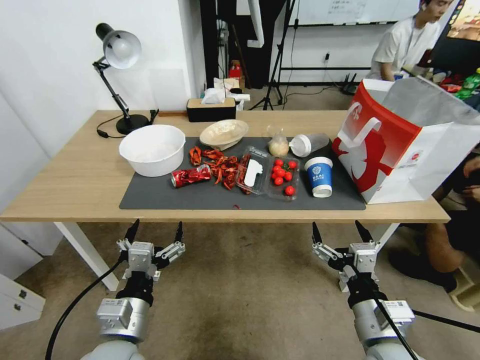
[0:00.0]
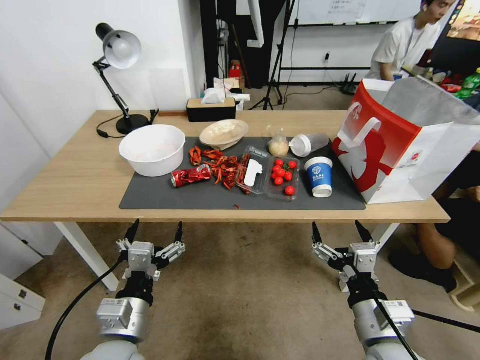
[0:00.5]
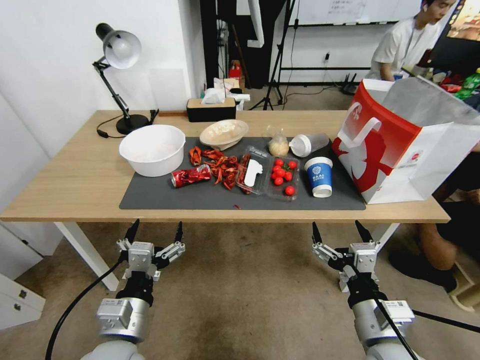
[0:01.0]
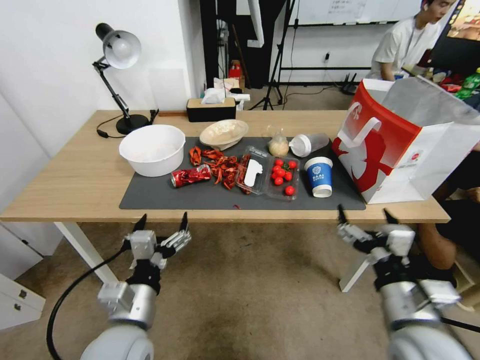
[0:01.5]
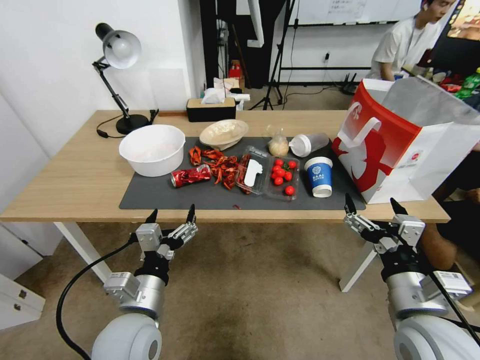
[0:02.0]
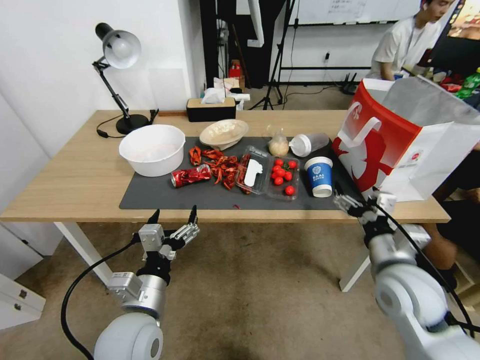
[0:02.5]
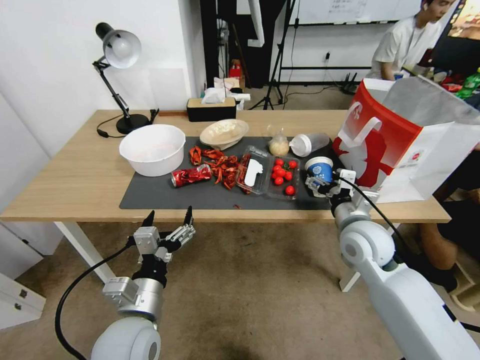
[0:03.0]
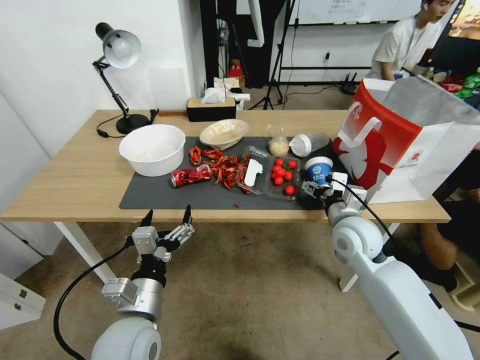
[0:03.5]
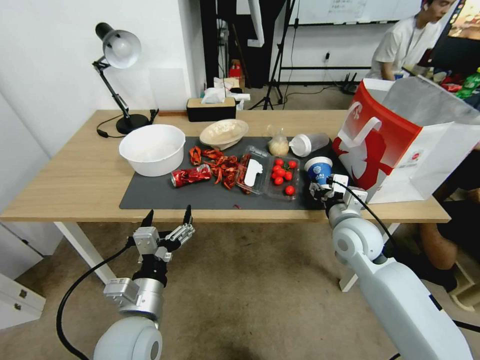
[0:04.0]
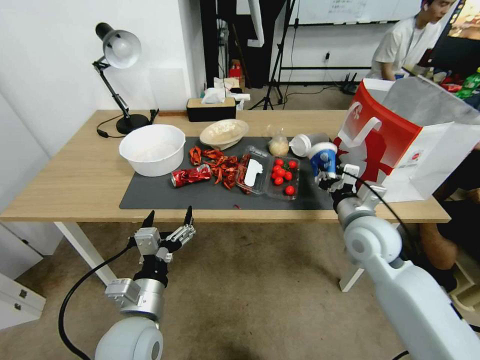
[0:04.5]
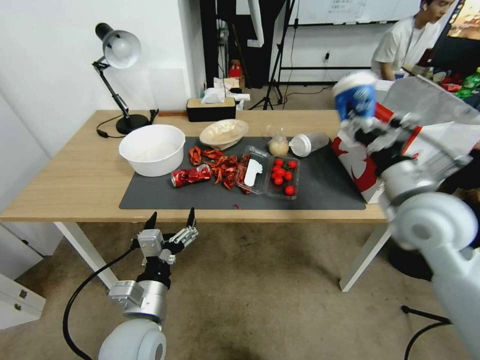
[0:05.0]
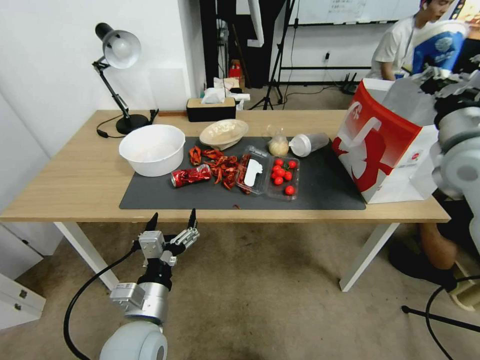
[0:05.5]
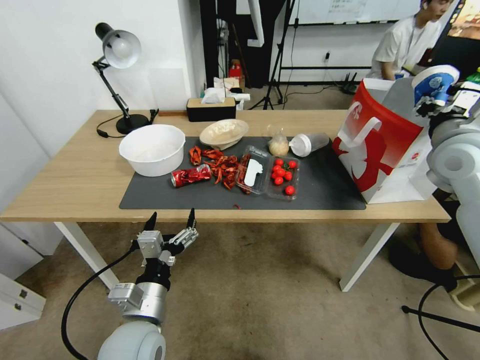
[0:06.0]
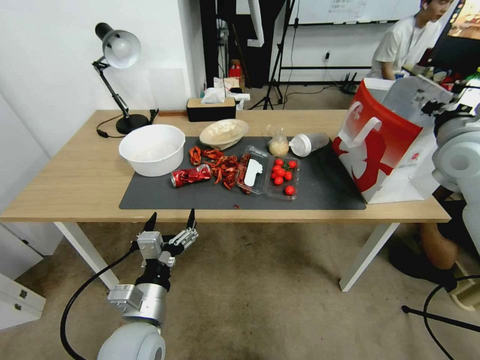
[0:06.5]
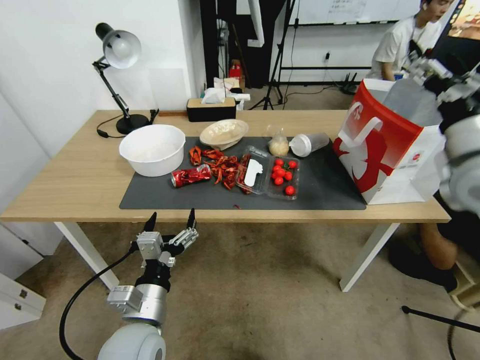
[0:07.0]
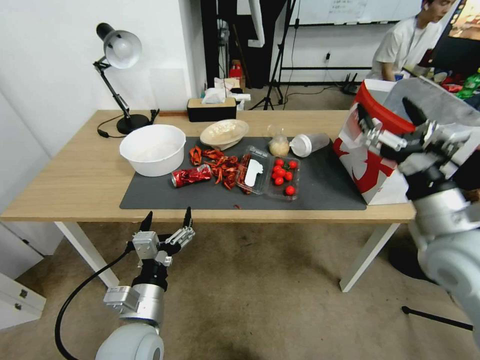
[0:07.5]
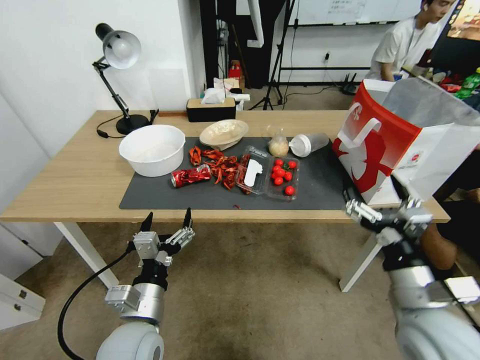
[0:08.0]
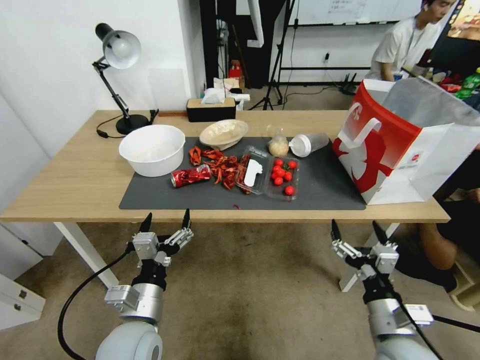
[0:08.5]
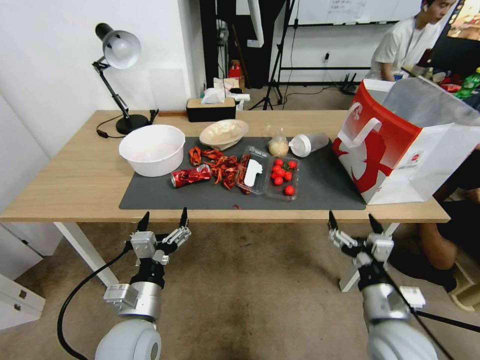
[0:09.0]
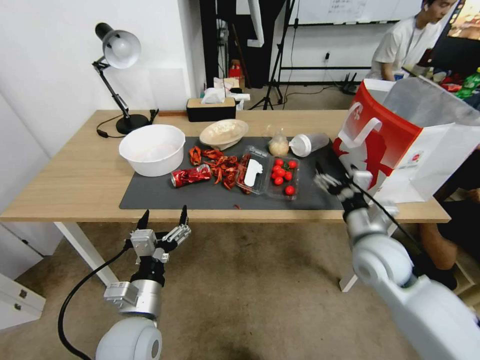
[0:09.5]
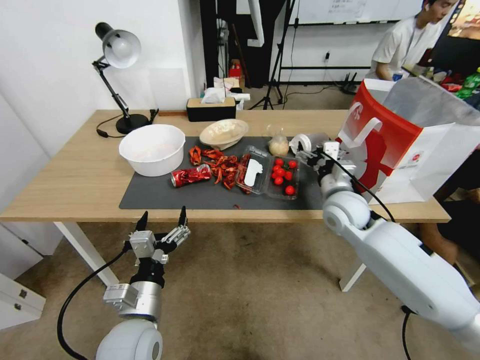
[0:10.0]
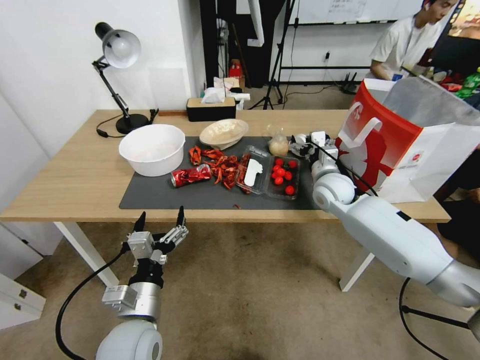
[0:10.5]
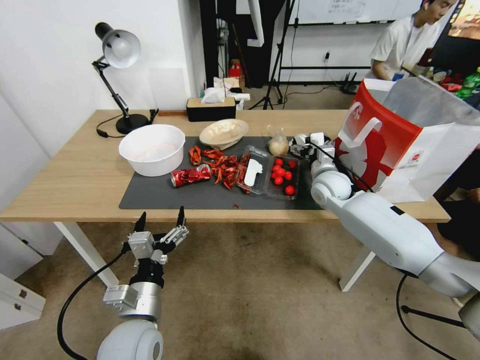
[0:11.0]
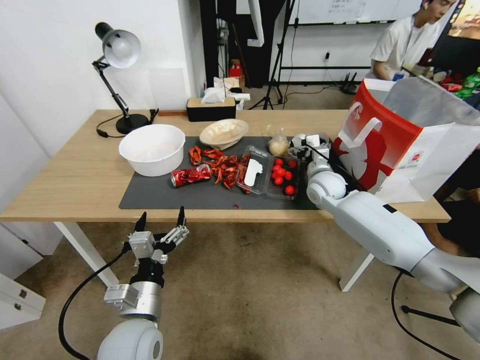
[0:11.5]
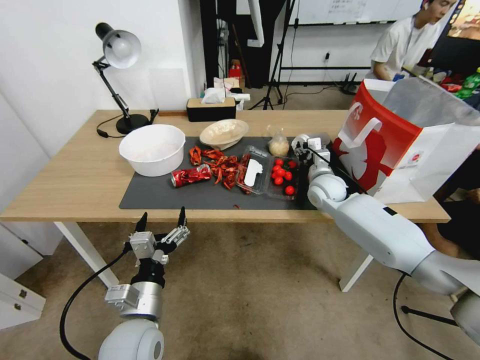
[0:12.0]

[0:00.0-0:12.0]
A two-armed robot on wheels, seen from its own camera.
0:02.0 to 0:04.0: The right gripper is displaced forward by roughly 20 cm, and closes.
0:04.0 to 0:06.0: The right gripper goes some 25 cm upward and to the right.
0:06.0 to 0:08.0: The right gripper goes about 30 cm backward, downward and to the left, and opens its fingers.
0:08.0 to 0:10.0: The right gripper travels forward by about 25 cm.
0:10.0 to 0:12.0: The right gripper goes some 10 cm forward, and closes.

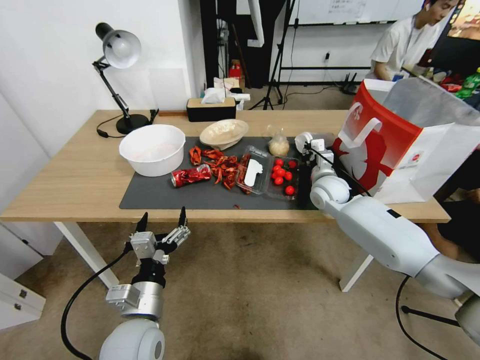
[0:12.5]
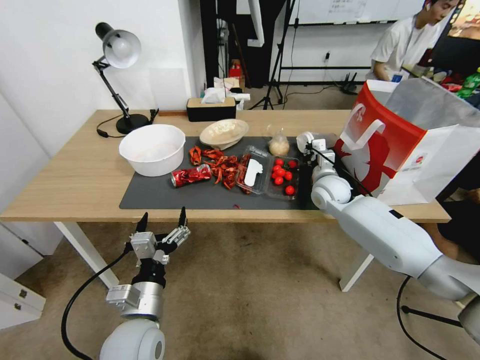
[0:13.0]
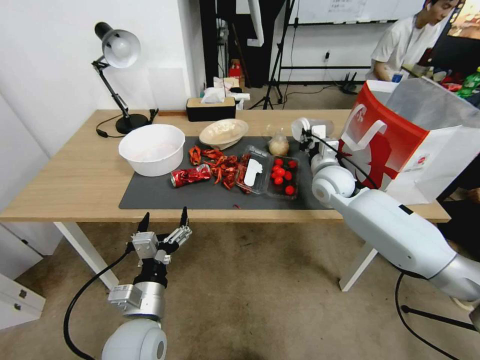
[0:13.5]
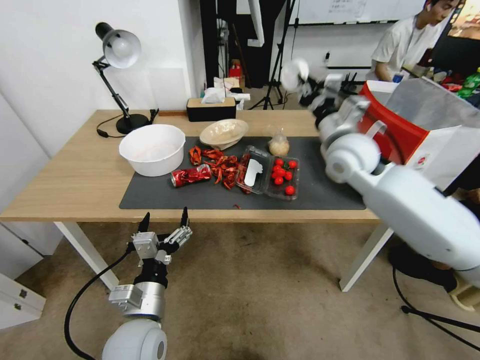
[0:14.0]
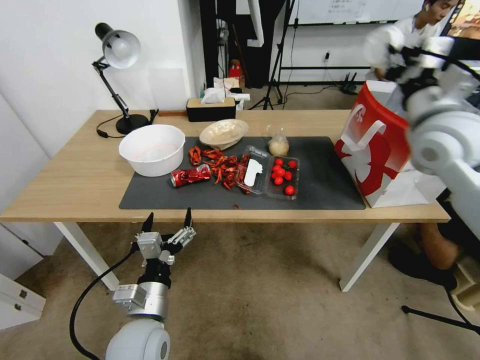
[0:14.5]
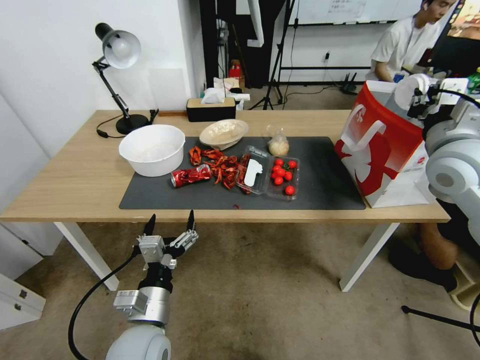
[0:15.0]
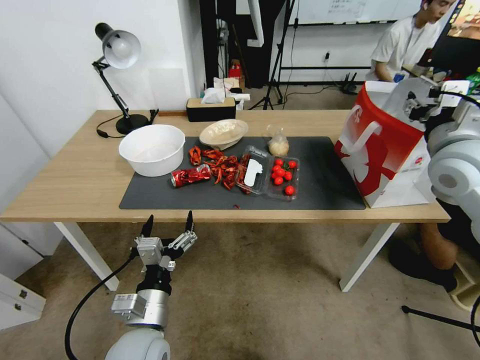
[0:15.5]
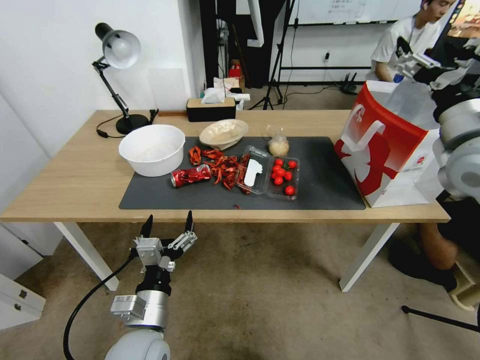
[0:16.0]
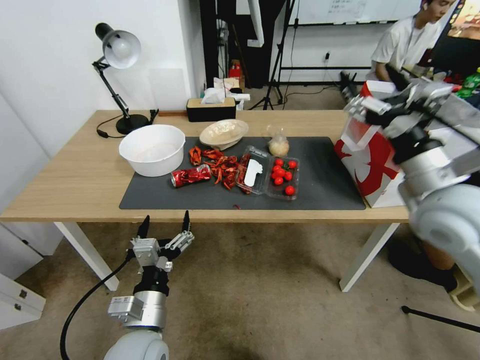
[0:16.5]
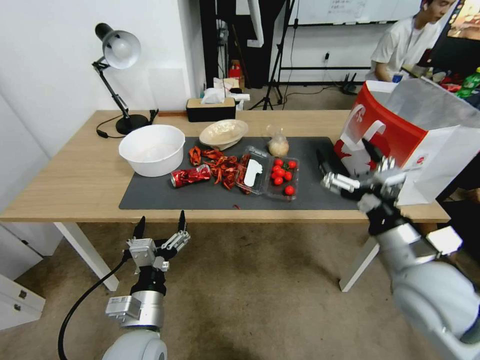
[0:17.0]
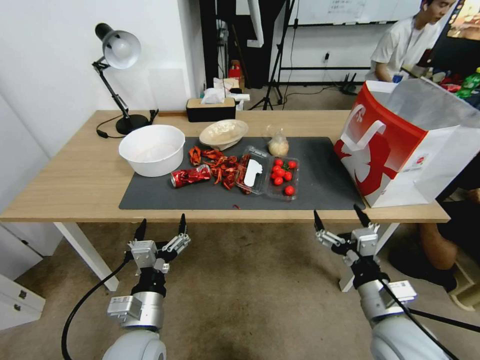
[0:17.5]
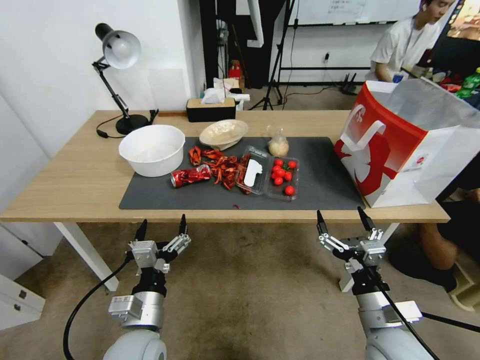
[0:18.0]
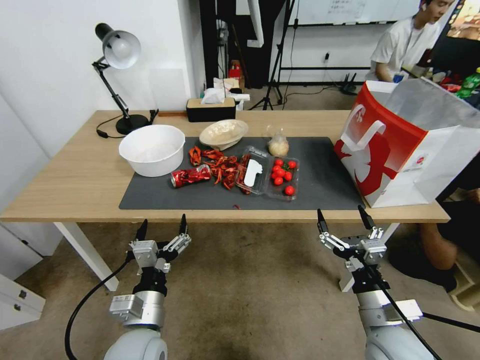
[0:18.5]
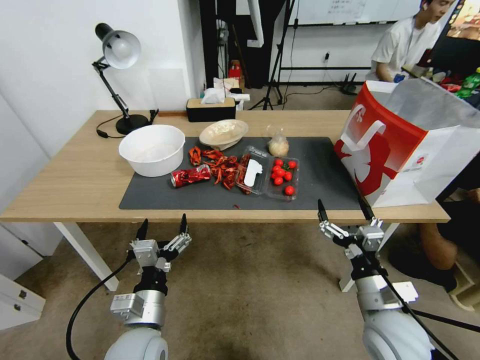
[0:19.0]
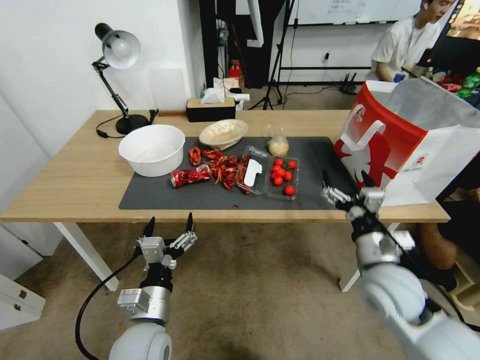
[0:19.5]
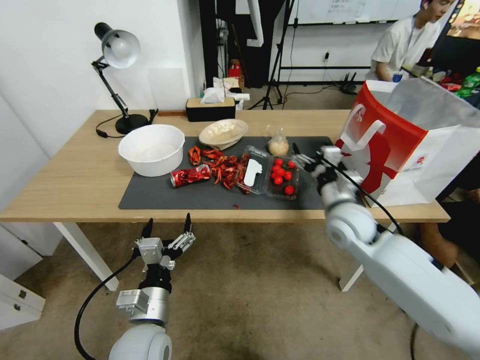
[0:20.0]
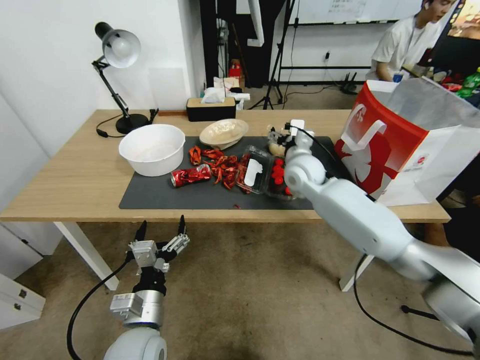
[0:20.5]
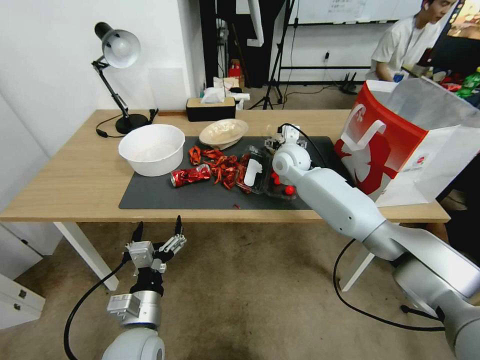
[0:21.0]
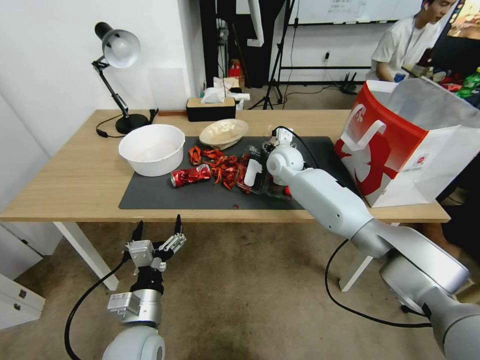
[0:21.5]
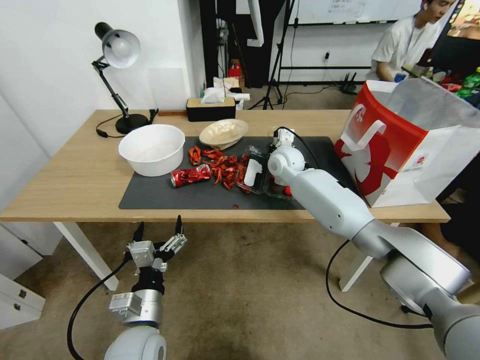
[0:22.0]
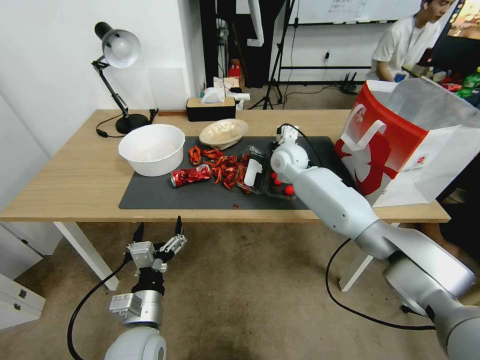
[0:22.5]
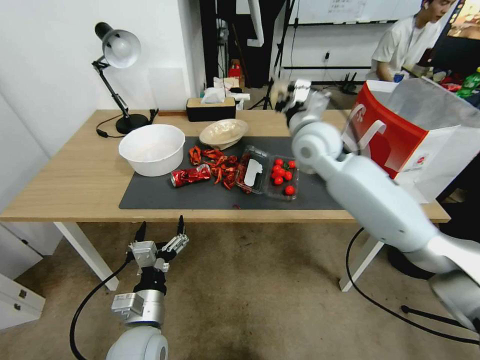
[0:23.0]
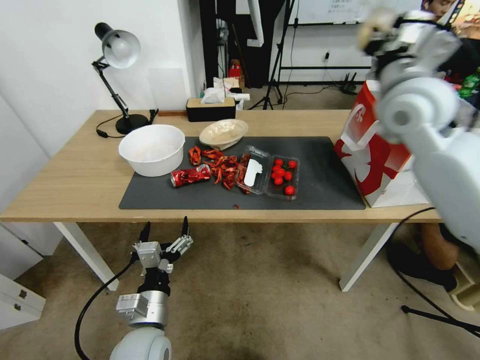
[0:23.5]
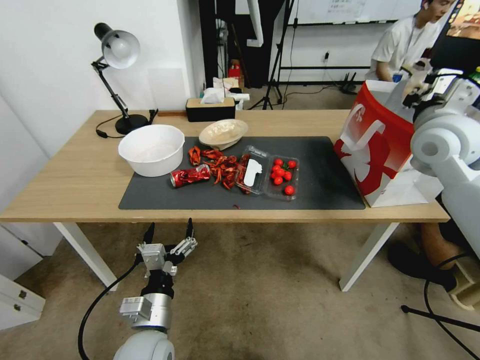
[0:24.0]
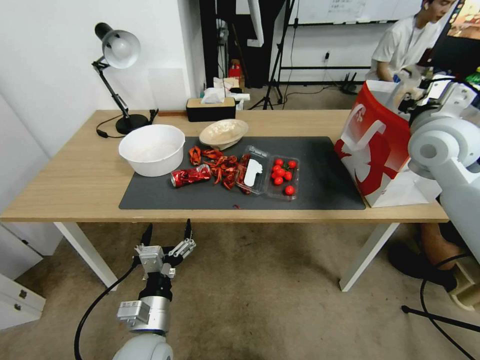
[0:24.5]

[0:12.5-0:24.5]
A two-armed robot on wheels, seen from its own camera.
0:12.5 to 0:14.5: The right gripper goes roughly 30 cm upward and backward.
0:14.5 to 0:16.5: The right gripper is displaced backward and downward by roughly 10 cm, and opens up.
0:16.5 to 0:18.5: The right gripper shifts approximately 25 cm downward and backward.
0:18.5 to 0:20.5: The right gripper heads forward, covering some 35 cm.
0:20.5 to 0:22.5: The right gripper shifts by approximately 5 cm, and closes.
0:22.5 to 0:24.5: The right gripper heads to the right, upward and backward, covering roughly 30 cm.

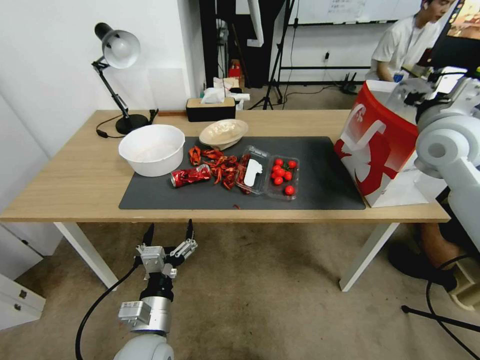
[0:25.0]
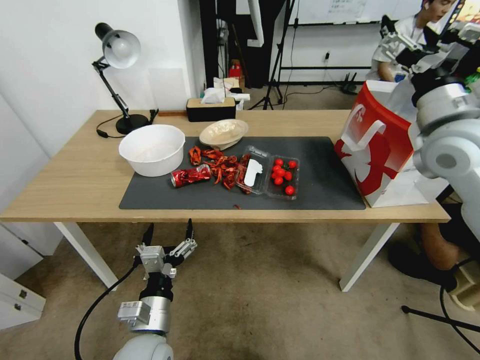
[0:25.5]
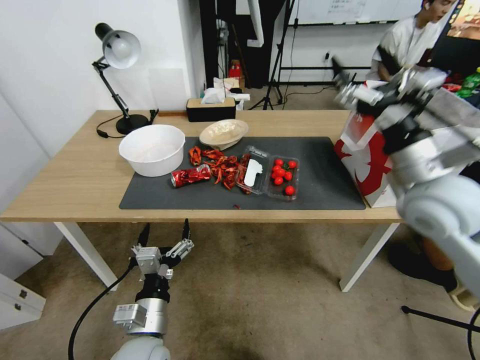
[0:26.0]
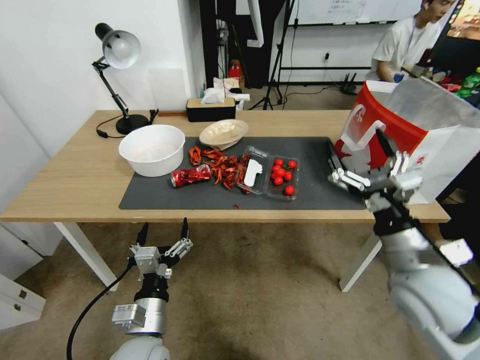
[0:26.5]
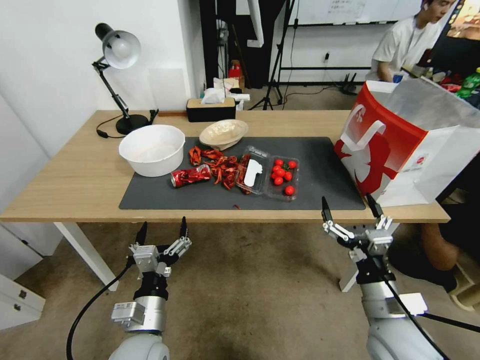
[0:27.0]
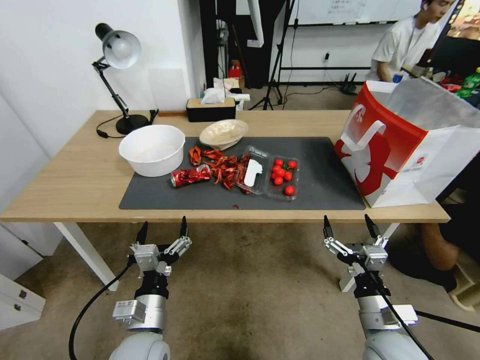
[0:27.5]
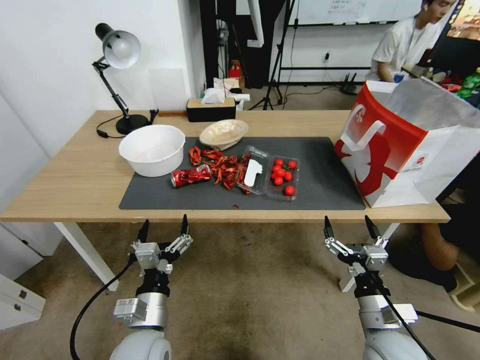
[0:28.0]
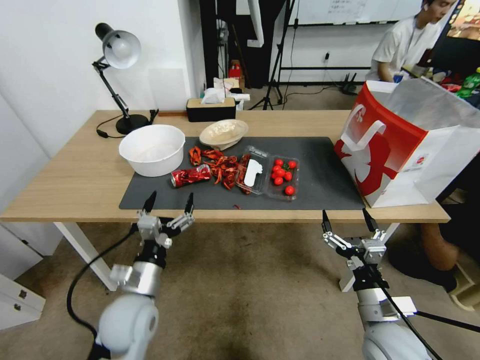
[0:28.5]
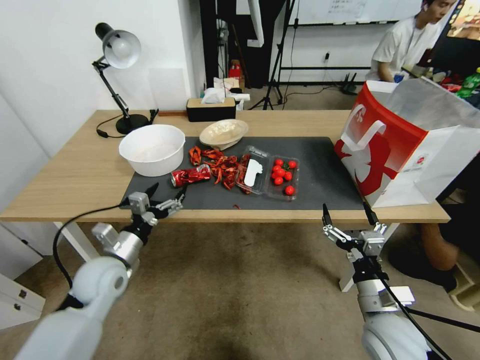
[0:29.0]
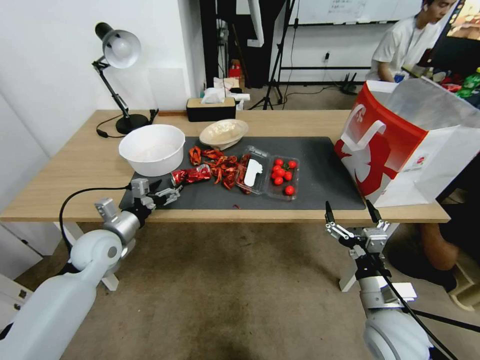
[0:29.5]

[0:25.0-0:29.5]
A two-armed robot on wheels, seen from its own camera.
0:25.0 to 0:27.0: The right gripper goes about 35 cm downward and backward.
0:27.0 to 0:29.5: The left gripper is displaced forward and to the left by approximately 25 cm.
